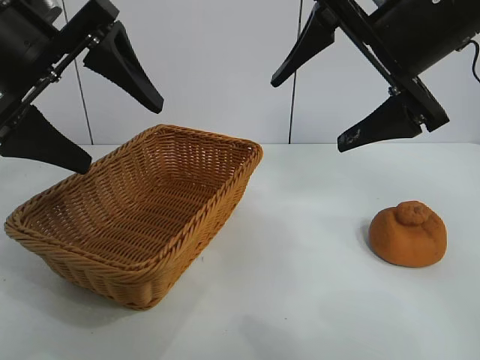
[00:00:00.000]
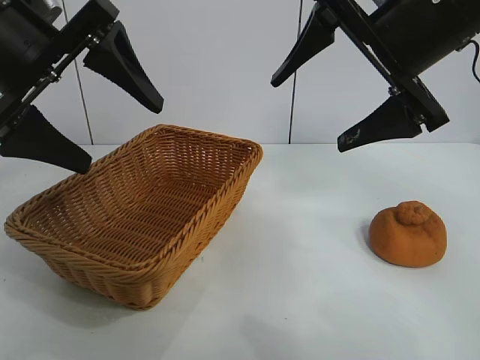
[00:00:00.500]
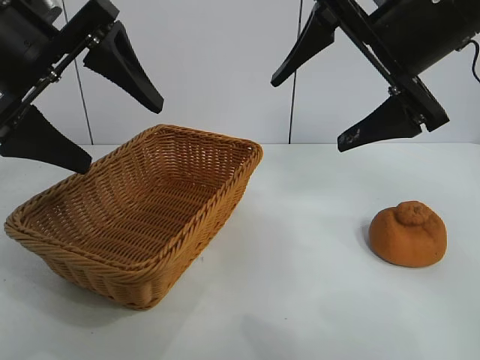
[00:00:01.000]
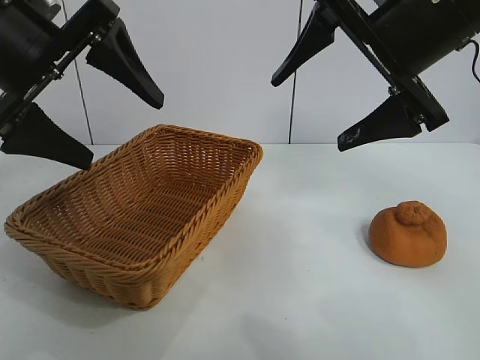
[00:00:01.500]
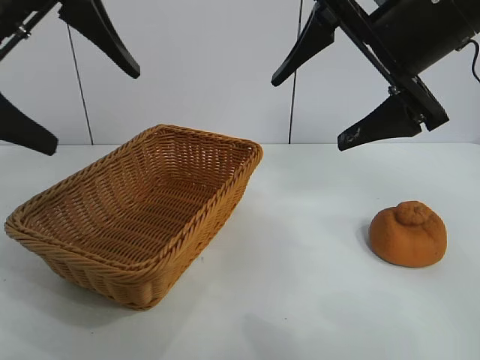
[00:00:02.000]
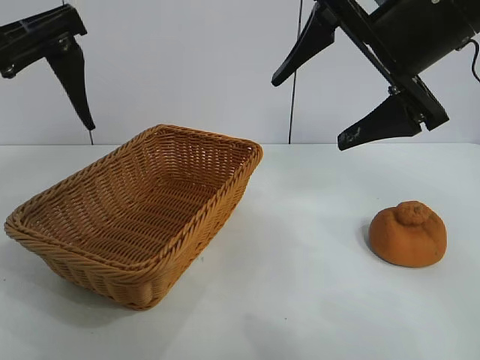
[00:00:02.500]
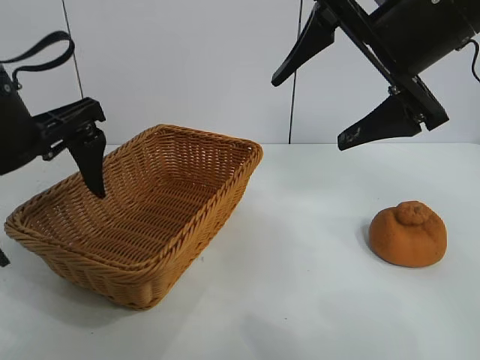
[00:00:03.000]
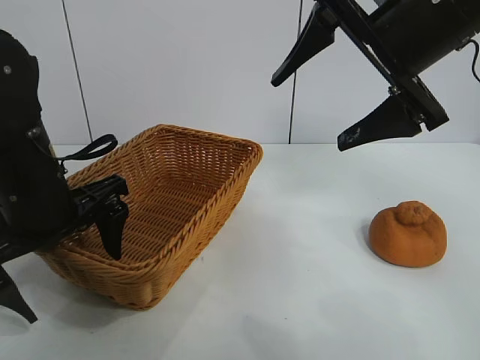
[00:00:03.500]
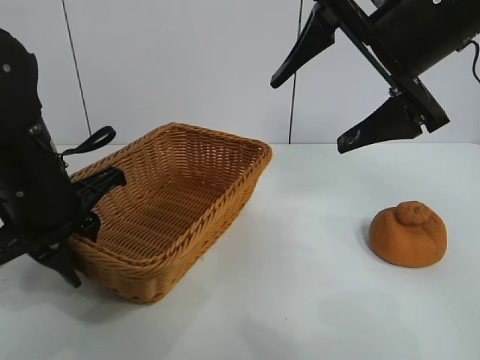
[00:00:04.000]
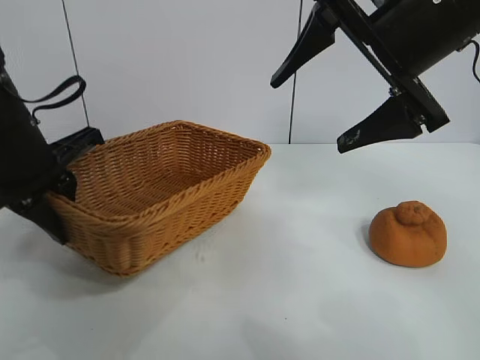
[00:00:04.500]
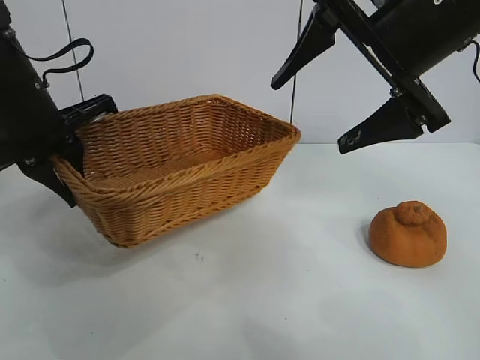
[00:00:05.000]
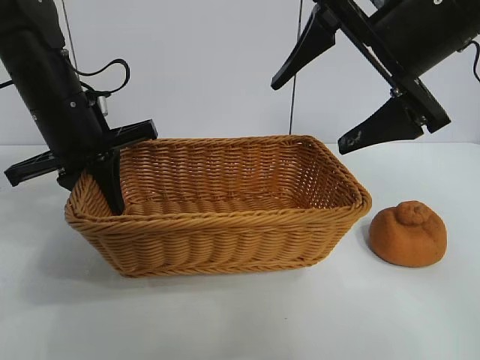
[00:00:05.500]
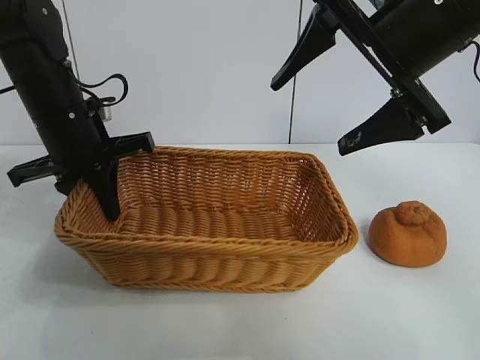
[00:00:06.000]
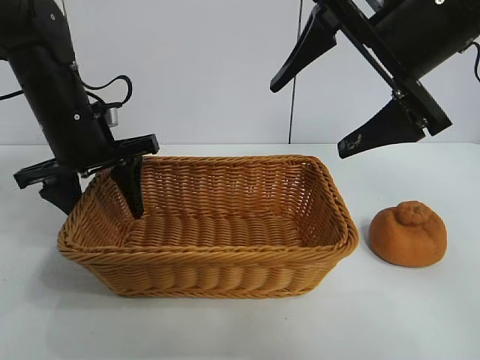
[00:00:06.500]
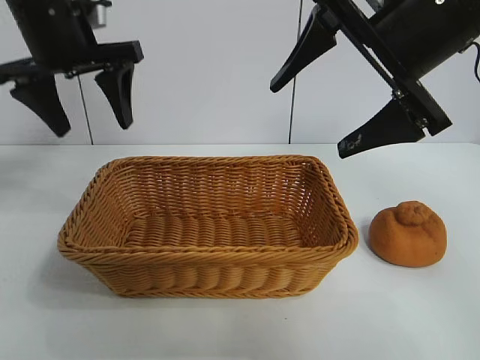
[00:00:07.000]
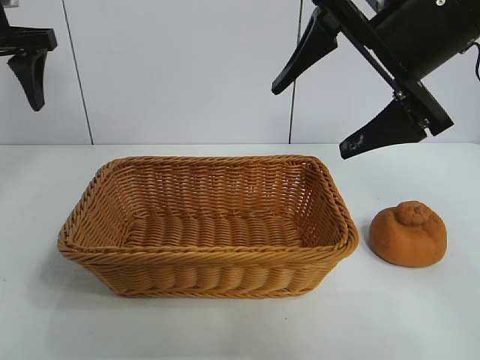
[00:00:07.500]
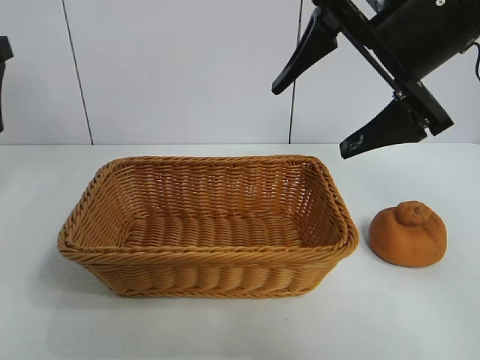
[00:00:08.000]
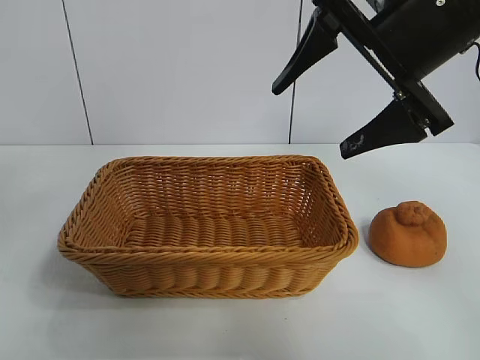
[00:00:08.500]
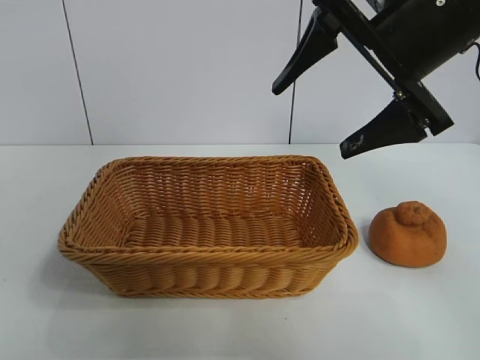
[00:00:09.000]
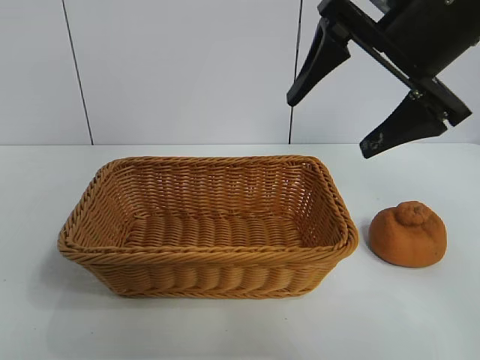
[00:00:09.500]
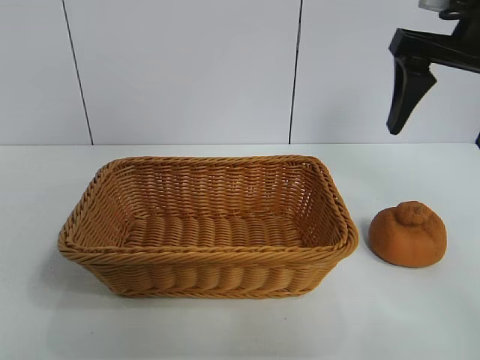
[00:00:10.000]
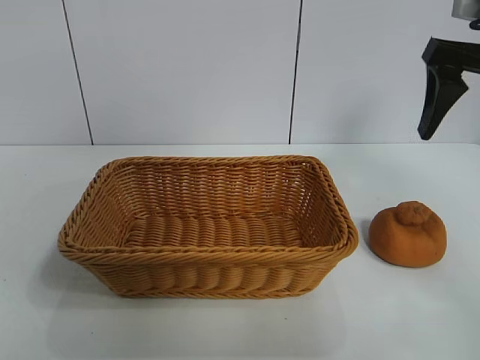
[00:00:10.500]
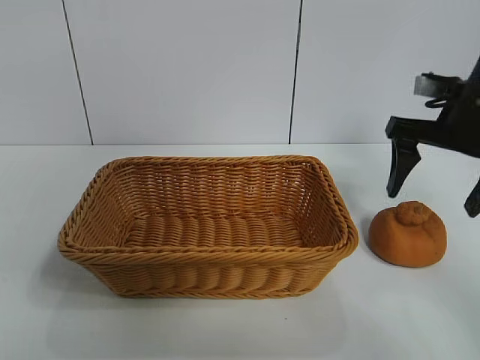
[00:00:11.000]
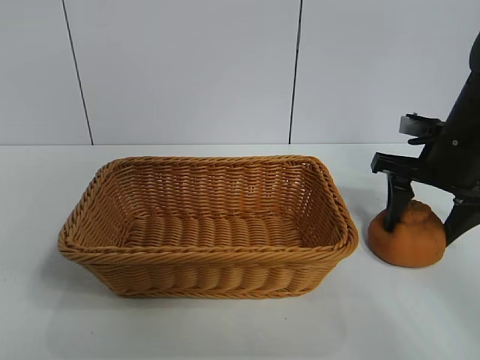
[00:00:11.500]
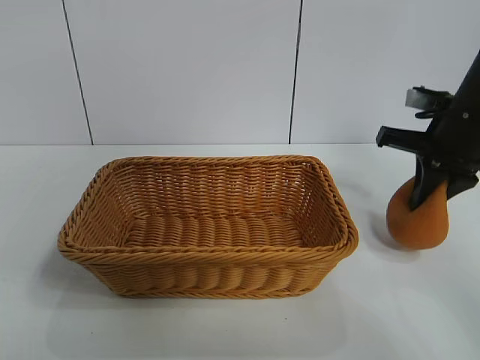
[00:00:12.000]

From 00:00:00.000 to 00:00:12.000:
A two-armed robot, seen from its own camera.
Task of the whole recording: pick up the orange and put it into the basket.
Step, from 00:00:01.500 to 00:00:04.000: Grasp the basket with left gripper.
Step, from 00:00:04.500 to 00:00:06.500: Place the basket in the center of view with left gripper.
Step, from 00:00:07.000 to 00:00:11.500: Grasp the orange with right gripper.

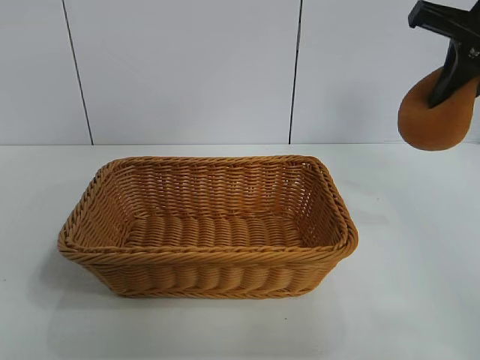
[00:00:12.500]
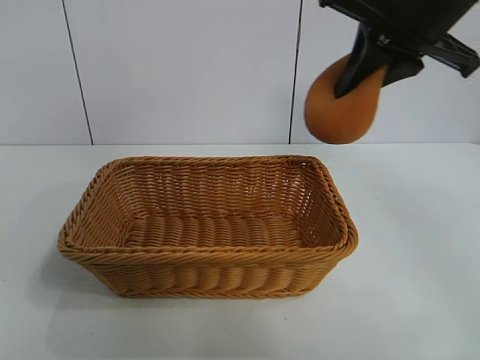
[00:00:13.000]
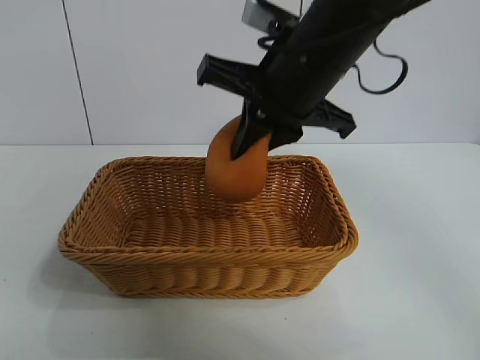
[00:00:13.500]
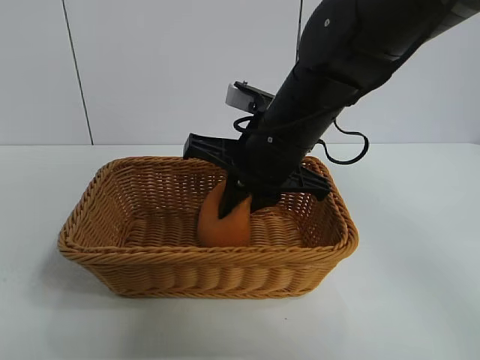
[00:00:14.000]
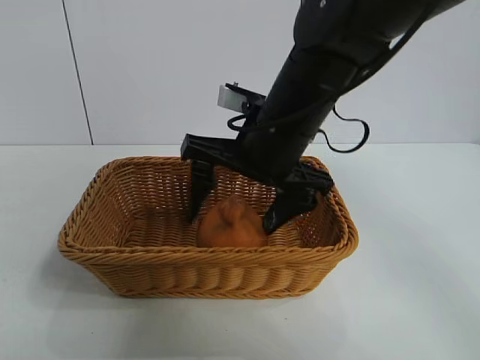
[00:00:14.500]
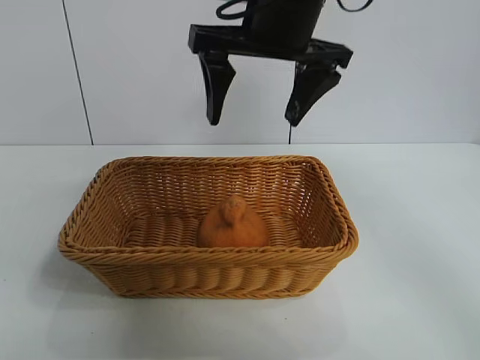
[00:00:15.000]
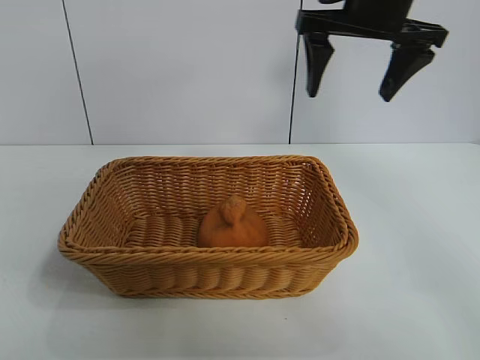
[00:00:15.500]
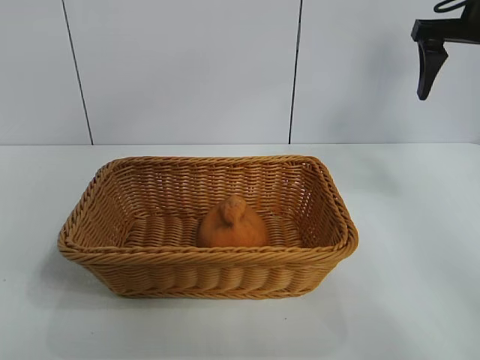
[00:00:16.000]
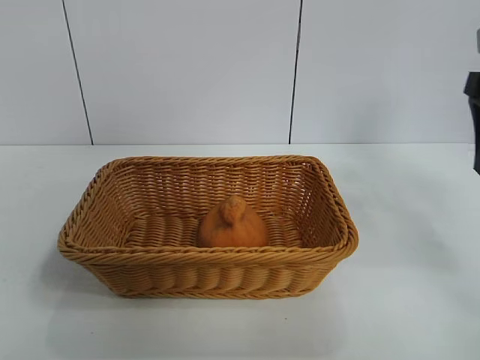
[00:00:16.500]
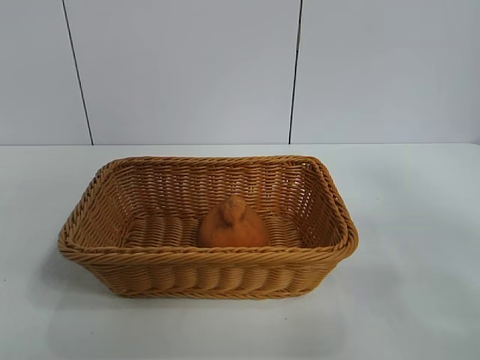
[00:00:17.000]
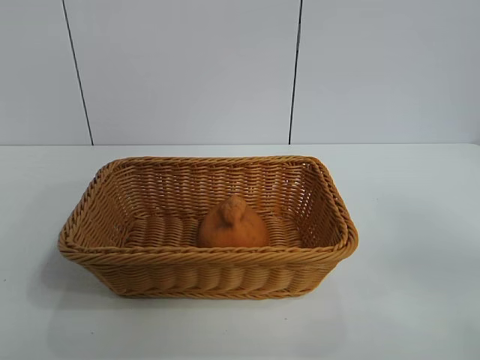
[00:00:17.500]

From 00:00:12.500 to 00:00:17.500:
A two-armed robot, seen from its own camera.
Task of the whole recording: pick up the orange and put it into the basket.
Step, from 00:00:12.500 to 00:00:14.500: Place the orange in the basket with right gripper.
